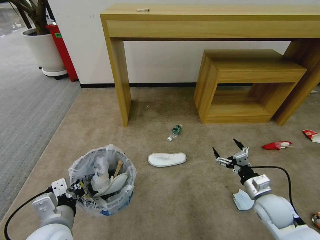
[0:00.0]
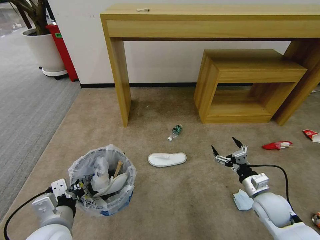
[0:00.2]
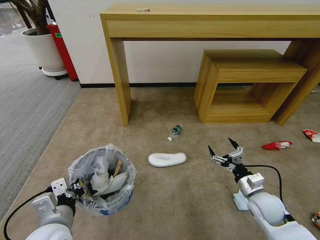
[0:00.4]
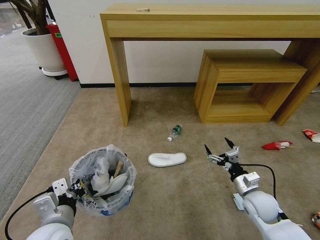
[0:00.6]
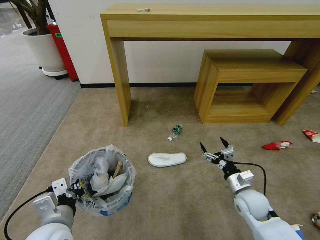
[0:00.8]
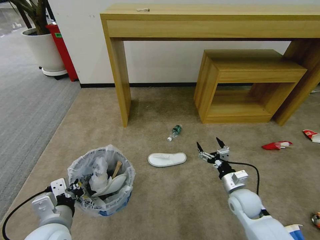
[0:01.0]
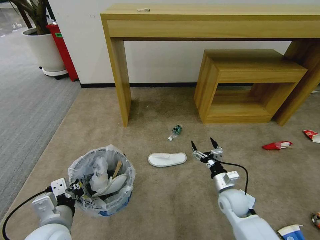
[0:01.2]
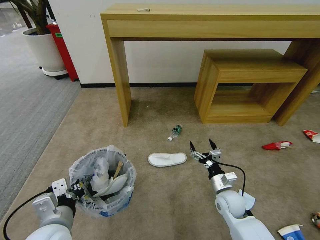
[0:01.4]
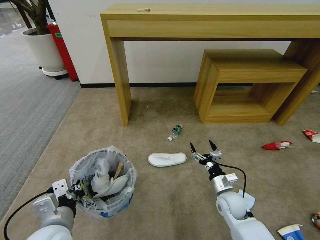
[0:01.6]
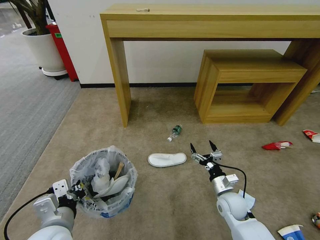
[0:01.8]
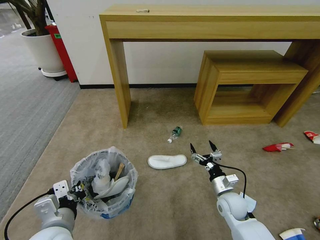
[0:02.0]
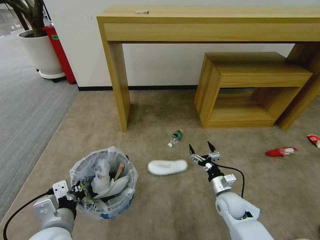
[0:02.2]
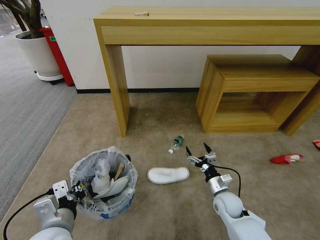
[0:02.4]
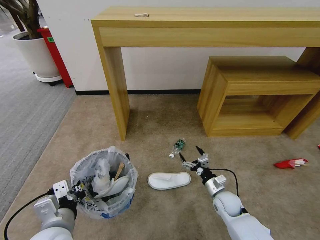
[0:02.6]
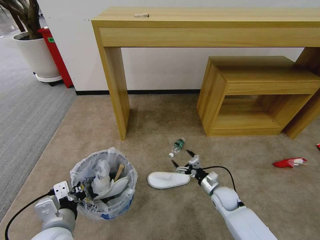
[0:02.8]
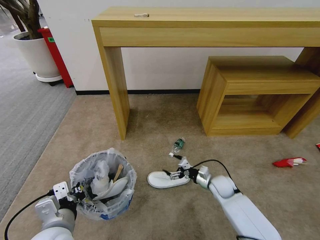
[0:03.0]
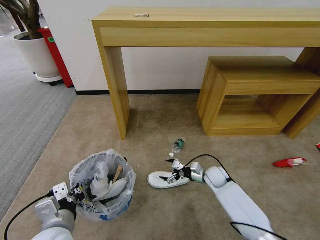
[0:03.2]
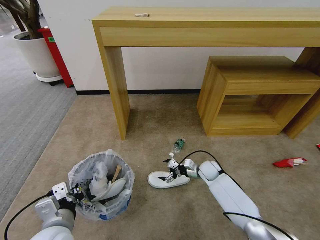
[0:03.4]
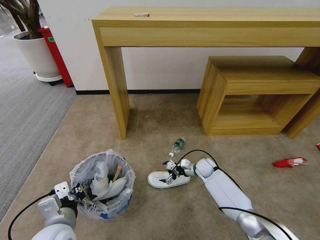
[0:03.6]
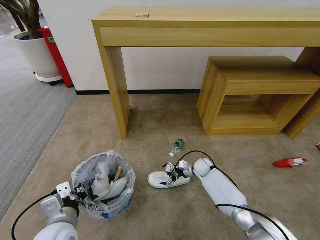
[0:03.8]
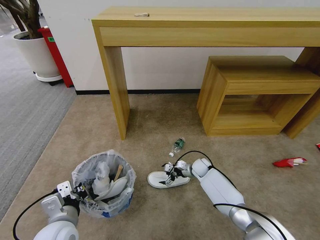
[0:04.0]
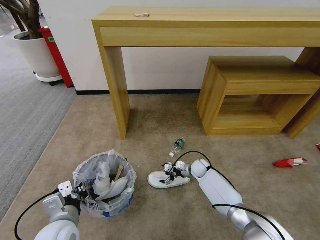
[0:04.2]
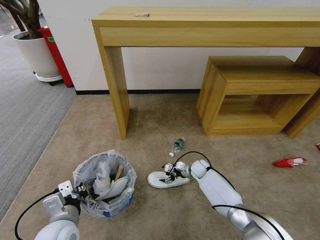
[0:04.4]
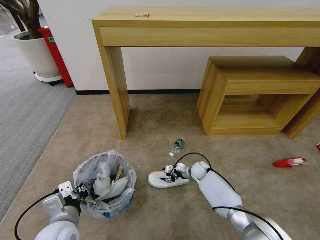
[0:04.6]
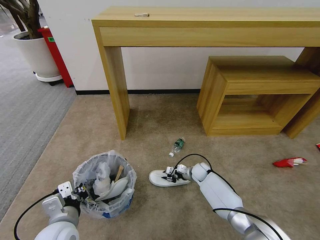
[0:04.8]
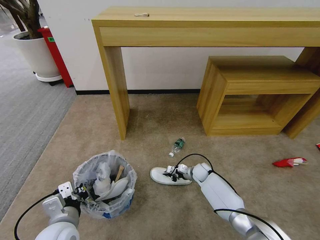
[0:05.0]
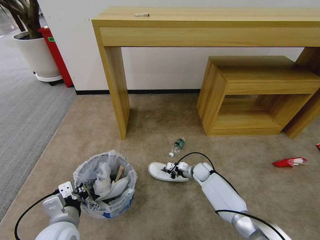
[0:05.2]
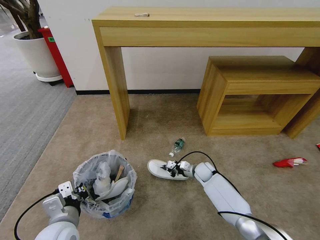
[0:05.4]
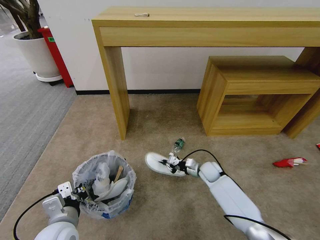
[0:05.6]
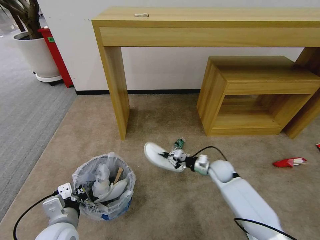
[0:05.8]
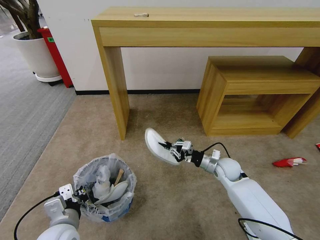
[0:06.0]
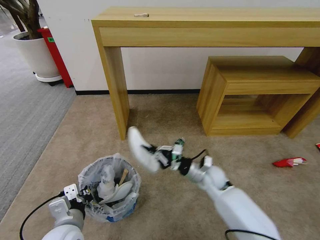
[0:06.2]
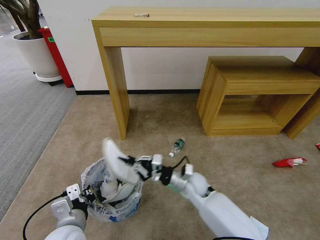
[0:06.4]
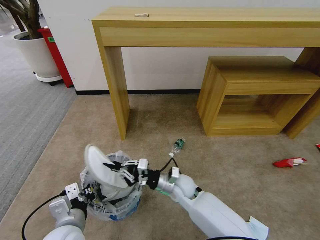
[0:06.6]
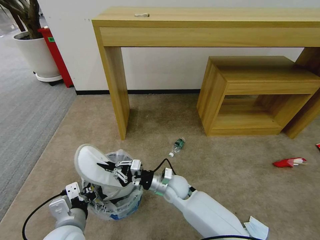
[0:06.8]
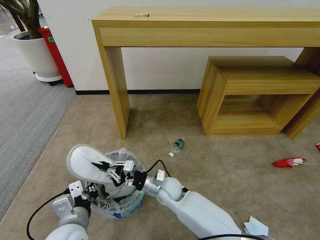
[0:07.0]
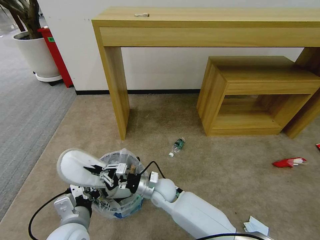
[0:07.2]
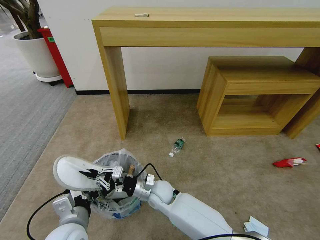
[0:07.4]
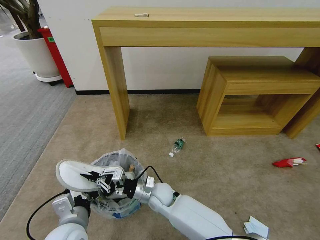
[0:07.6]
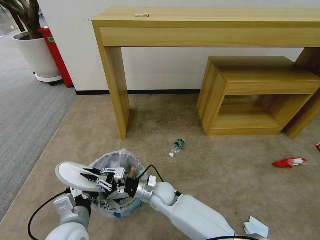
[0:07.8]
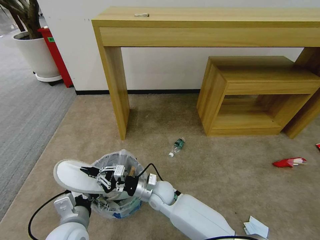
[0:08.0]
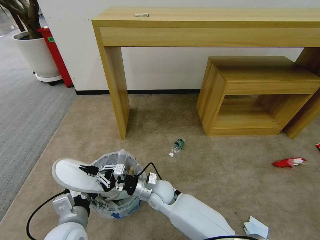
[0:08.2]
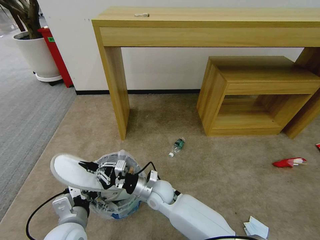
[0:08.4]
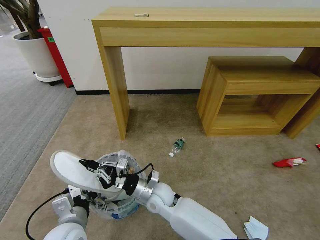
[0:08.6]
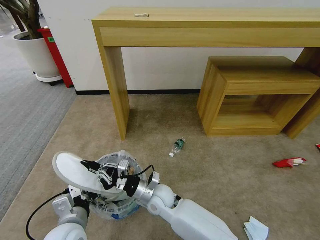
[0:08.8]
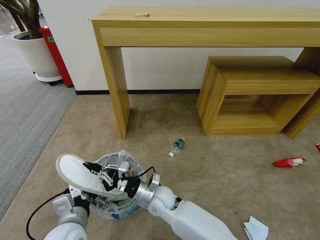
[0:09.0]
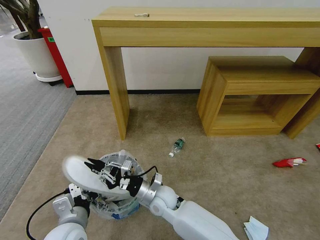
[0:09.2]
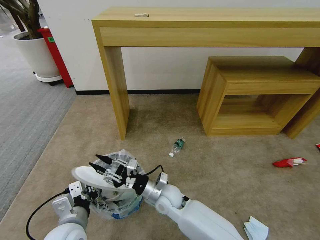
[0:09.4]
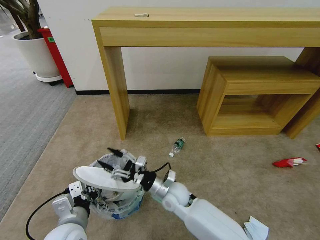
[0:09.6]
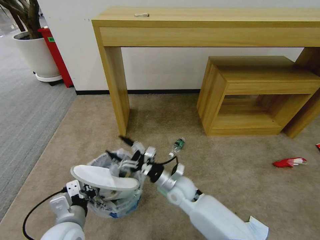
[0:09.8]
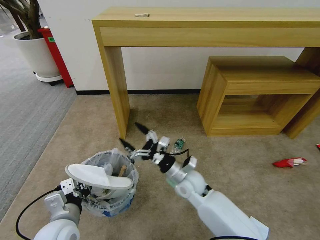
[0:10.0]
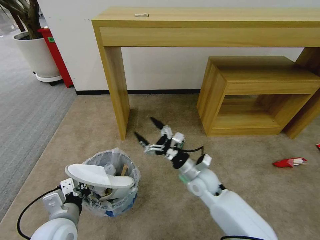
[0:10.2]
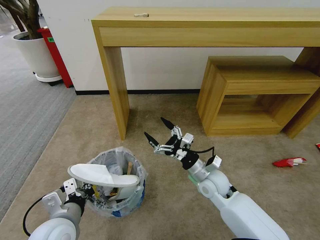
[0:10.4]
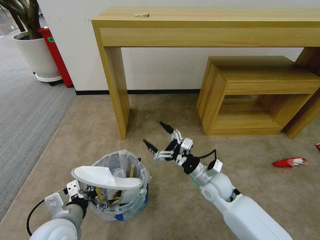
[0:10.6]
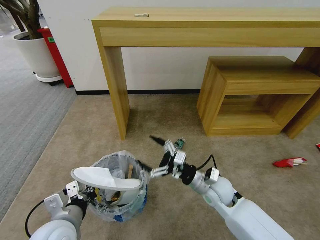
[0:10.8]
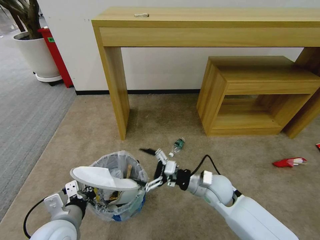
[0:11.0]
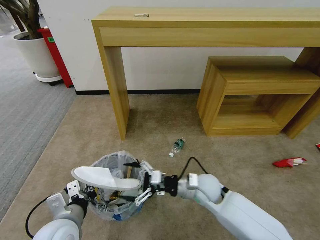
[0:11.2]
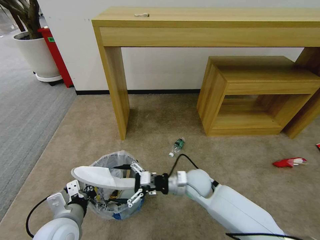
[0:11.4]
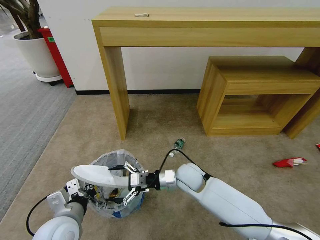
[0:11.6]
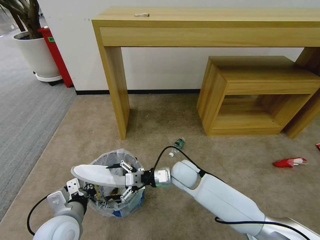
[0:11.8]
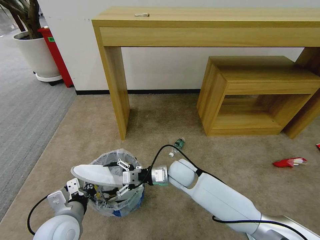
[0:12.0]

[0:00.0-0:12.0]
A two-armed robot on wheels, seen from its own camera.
Task of the whole recording: Pick up the trash bin and place the garbage on the floor into it.
0:00.0 to 0:01.6: The right gripper is displaced to the left and downward by roughly 10 cm.
0:01.6 to 0:03.0: The right gripper is displaced forward by some 10 cm.
0:03.0 to 0:04.4: The right gripper is displaced forward and to the left by some 10 cm.
0:04.4 to 0:06.0: The right gripper is displaced upward and backward by about 15 cm, and closes.
0:06.0 to 0:07.6: The right gripper travels to the left by approximately 25 cm.
0:07.6 to 0:09.0: There are only small adjustments of the grippers.
0:09.0 to 0:10.4: The right gripper is displaced to the right and upward by approximately 15 cm, and opens.
0:10.4 to 0:12.0: The right gripper travels to the left by approximately 5 cm.

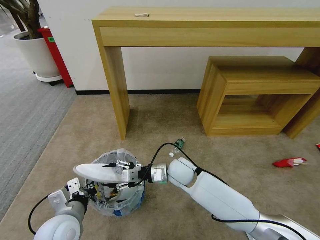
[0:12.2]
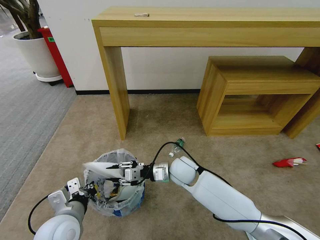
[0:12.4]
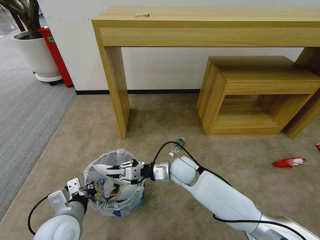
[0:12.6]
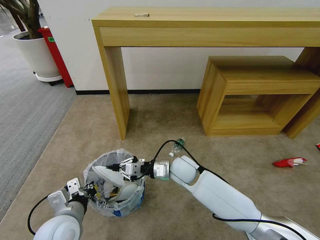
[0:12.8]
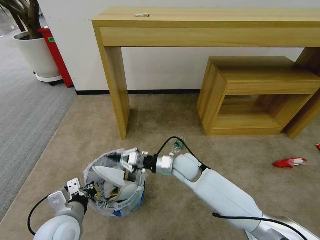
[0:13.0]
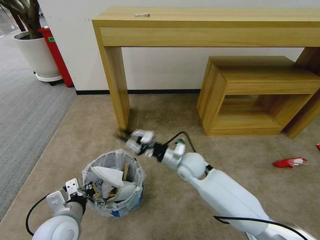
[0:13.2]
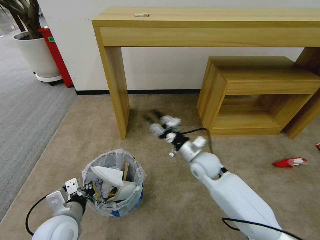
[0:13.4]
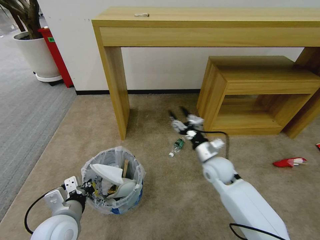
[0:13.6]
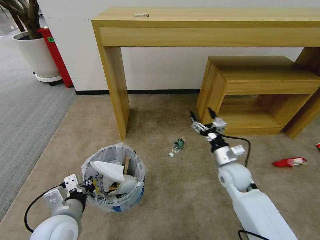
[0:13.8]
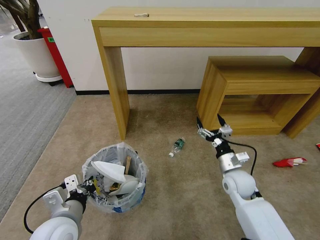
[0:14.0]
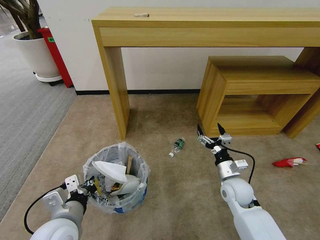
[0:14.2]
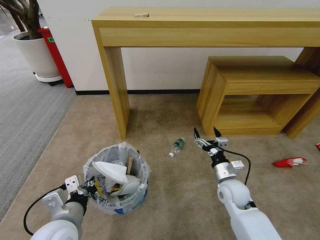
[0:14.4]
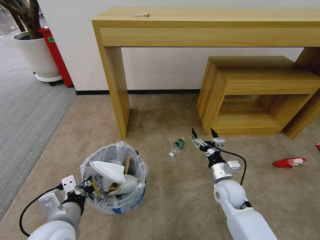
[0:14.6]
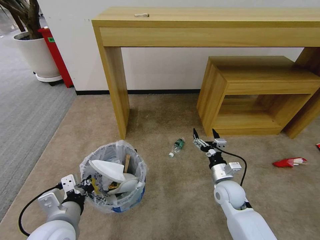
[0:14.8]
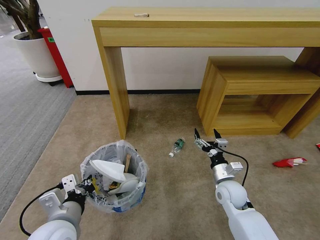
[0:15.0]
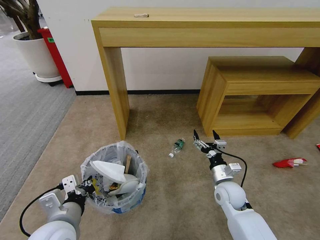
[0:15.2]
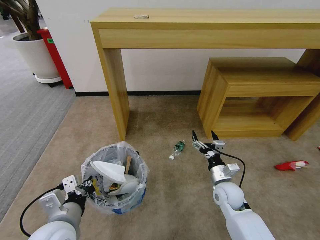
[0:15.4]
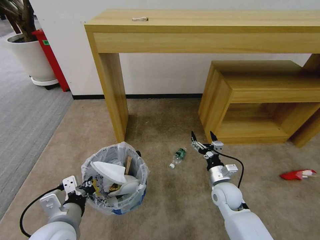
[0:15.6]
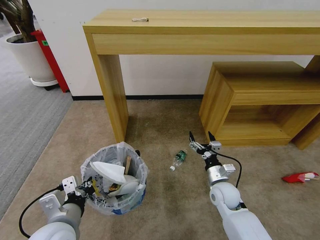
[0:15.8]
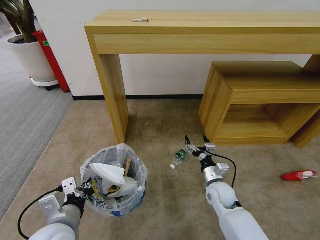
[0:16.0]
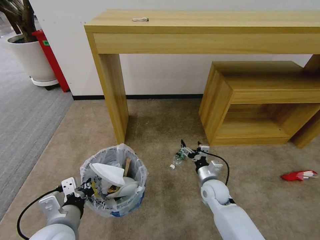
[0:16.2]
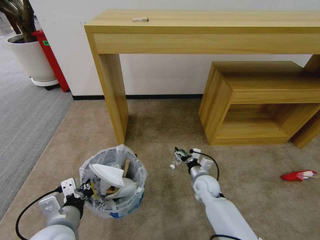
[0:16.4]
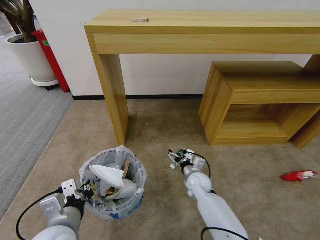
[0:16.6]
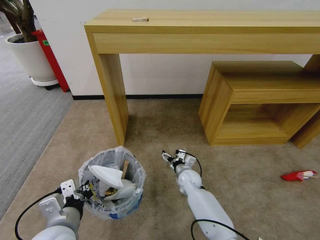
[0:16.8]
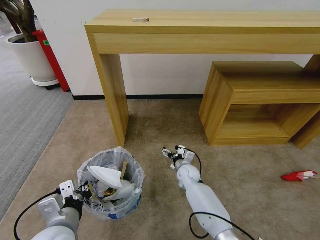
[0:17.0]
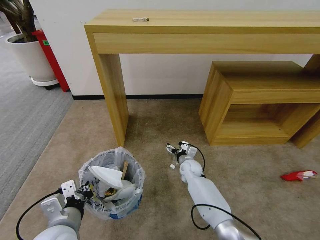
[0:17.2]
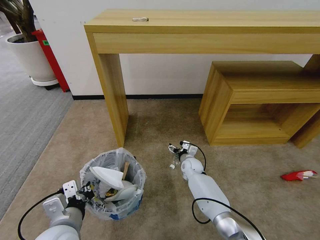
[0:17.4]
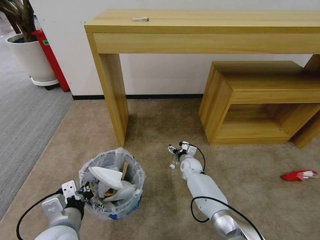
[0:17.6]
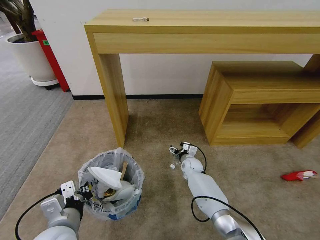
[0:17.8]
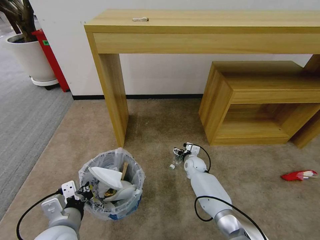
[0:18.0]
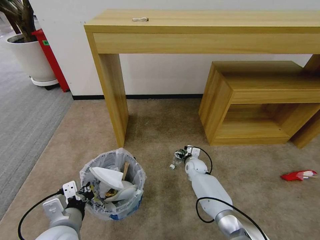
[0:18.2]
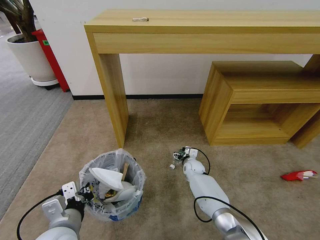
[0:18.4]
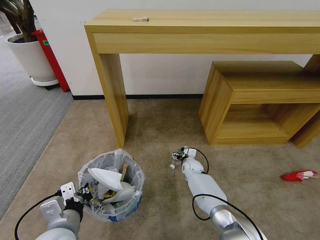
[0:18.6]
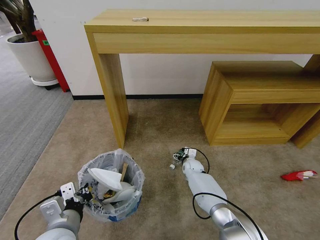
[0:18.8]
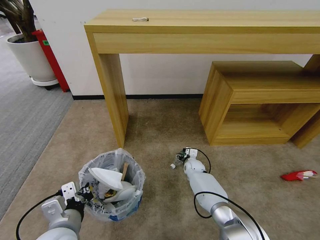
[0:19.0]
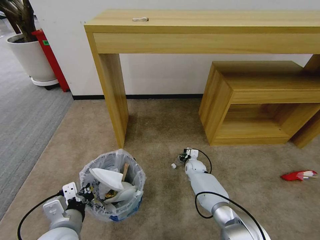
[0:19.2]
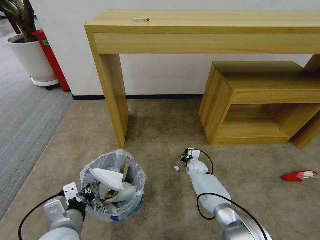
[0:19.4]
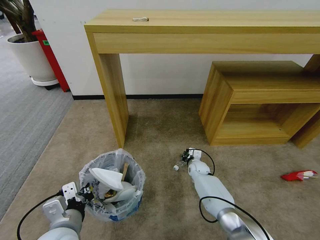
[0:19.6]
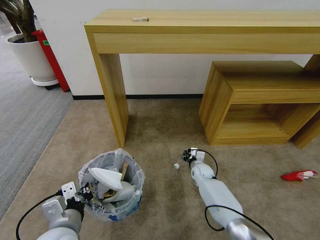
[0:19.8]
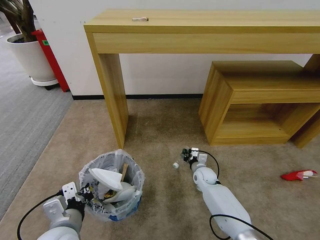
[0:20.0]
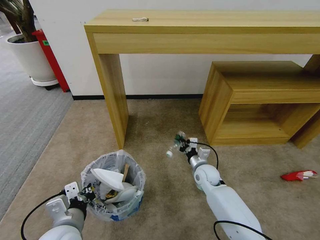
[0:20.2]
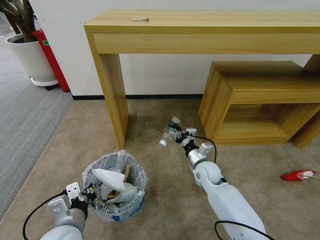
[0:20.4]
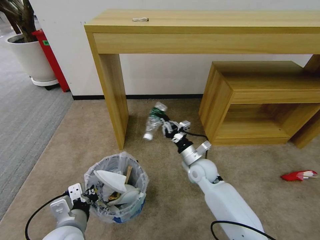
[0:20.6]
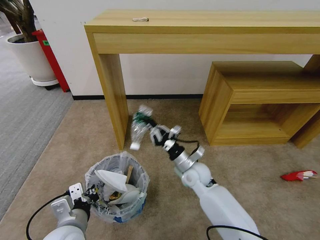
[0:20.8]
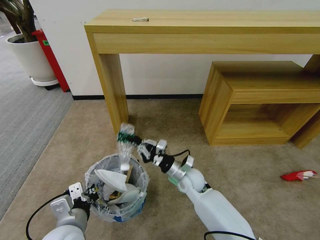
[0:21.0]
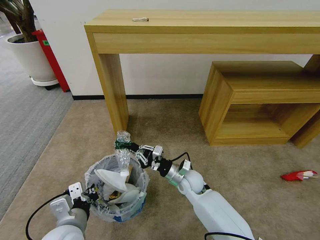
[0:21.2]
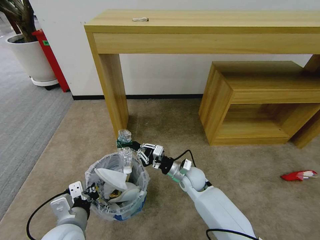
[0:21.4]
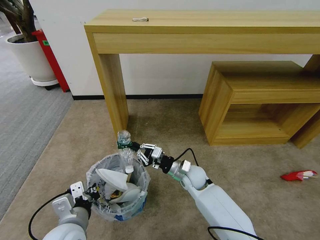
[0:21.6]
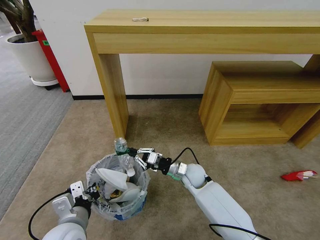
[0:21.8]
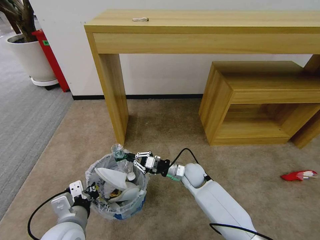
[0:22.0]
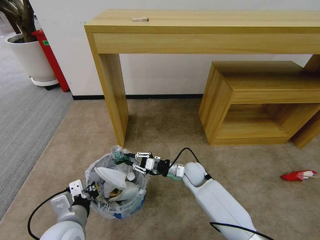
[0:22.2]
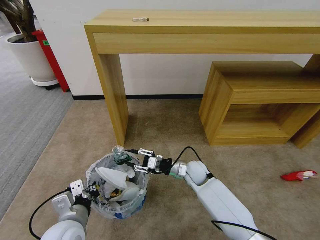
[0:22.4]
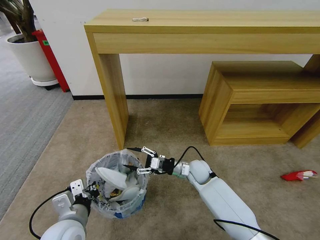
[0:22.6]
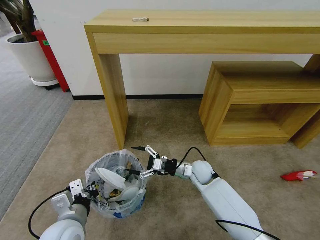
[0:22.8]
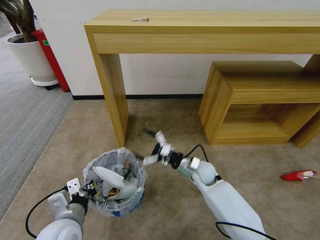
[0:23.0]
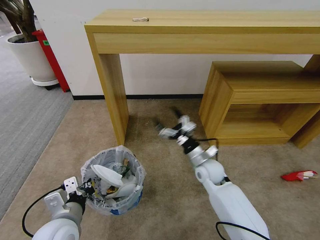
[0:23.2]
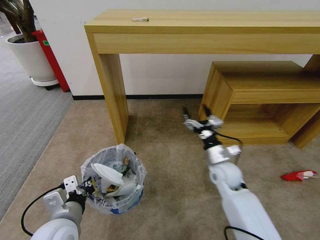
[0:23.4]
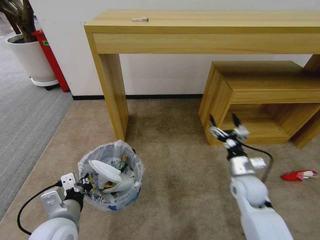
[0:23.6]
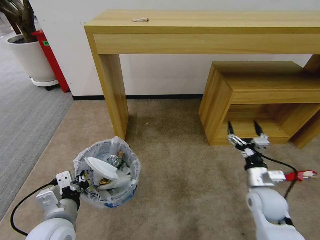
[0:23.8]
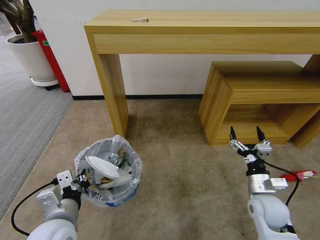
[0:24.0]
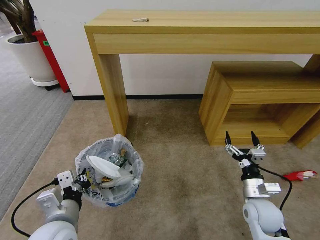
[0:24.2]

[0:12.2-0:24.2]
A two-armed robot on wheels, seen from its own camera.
Task of the whole recording: Pick up the trash bin and place the garbage on the floor into it.
0:12.2 to 0:13.8: The right gripper moves to the right, some 20 cm, and closes and opens again.
0:13.8 to 0:15.2: The right gripper goes some 5 cm downward.
0:15.2 to 0:16.6: The right gripper travels to the left, forward and downward by about 10 cm.
0:16.6 to 0:18.2: The right gripper is displaced forward by approximately 10 cm.
0:18.2 to 0:19.8: The right gripper closes its fingers.
0:19.8 to 0:21.2: The right gripper goes approximately 20 cm upward, backward and to the left.
0:21.2 to 0:22.6: The right gripper moves some 5 cm, and opens.
0:22.6 to 0:24.2: The right gripper moves to the right and backward, roughly 25 cm, and opens up.
